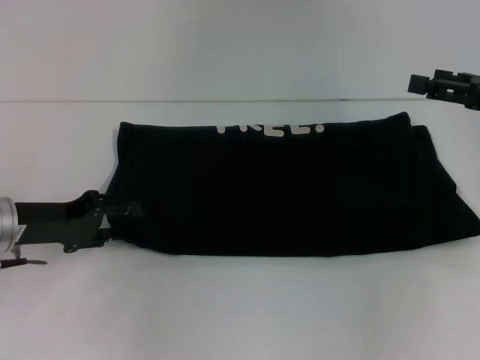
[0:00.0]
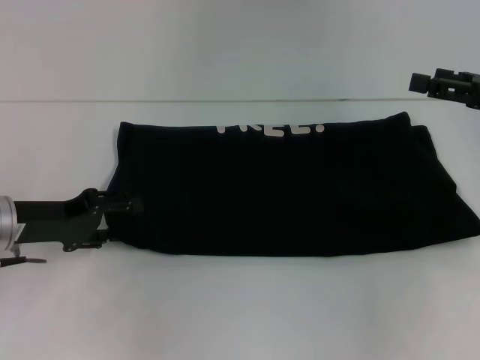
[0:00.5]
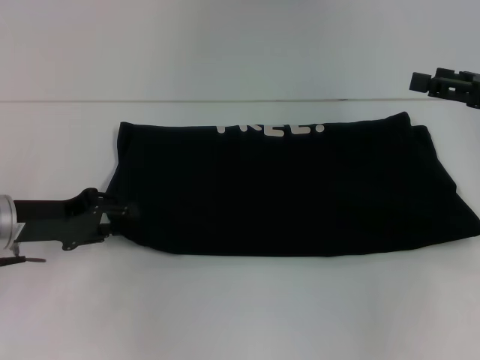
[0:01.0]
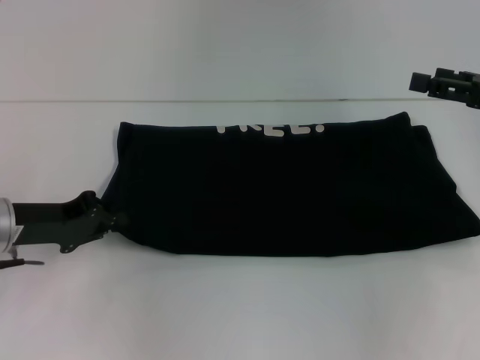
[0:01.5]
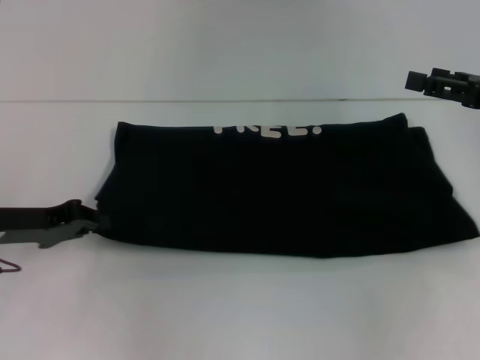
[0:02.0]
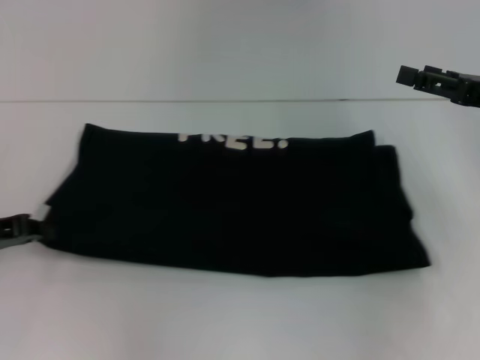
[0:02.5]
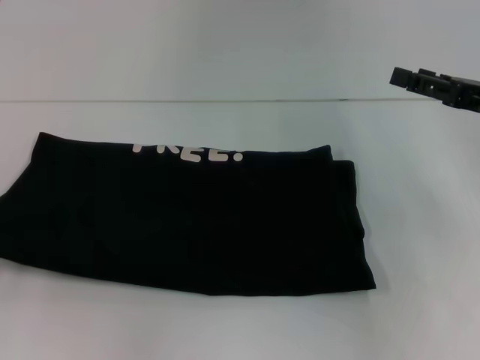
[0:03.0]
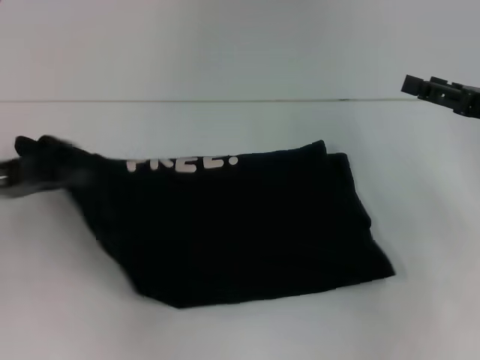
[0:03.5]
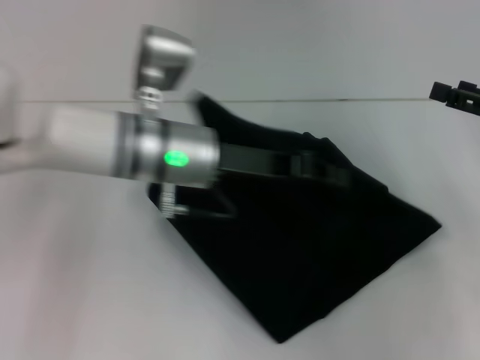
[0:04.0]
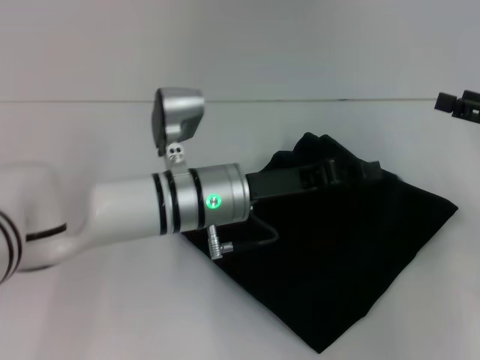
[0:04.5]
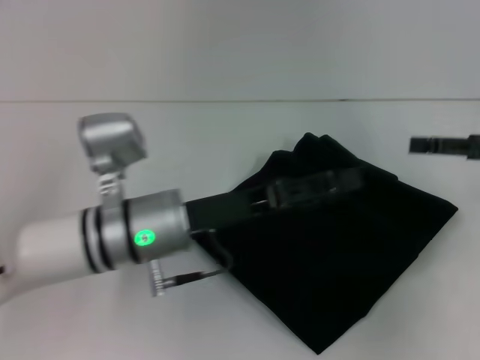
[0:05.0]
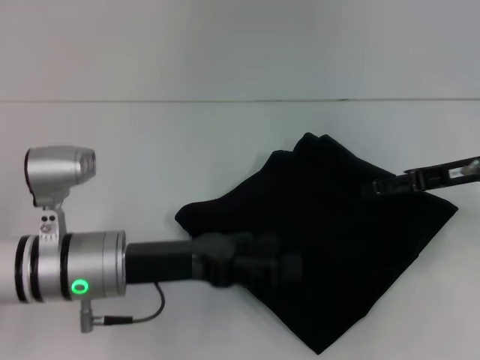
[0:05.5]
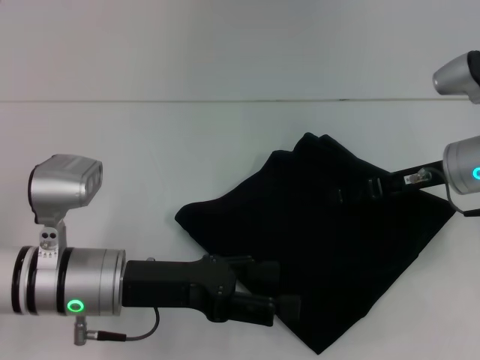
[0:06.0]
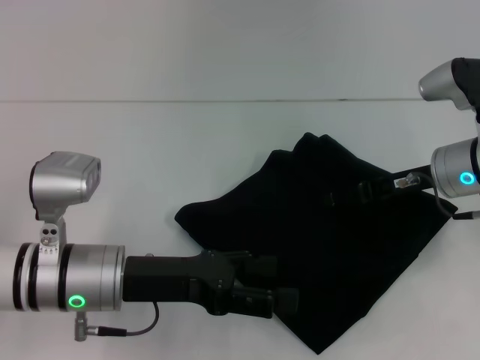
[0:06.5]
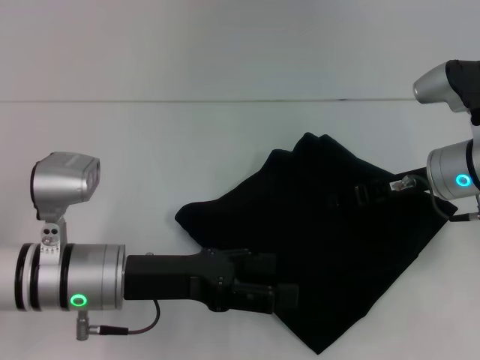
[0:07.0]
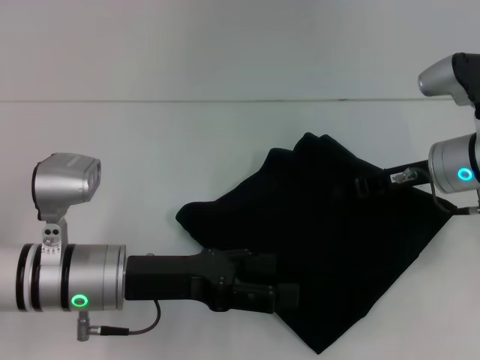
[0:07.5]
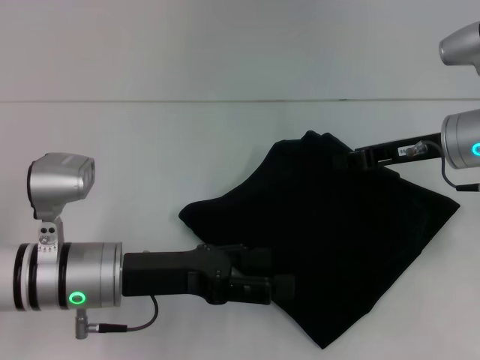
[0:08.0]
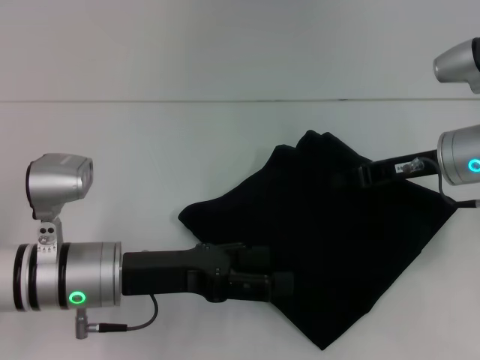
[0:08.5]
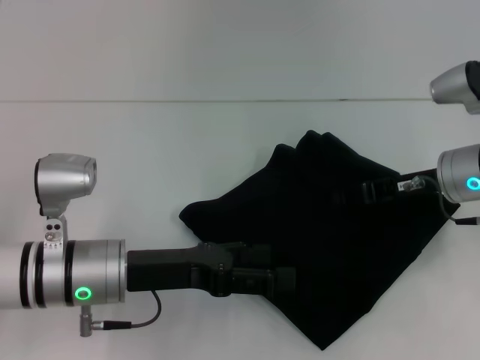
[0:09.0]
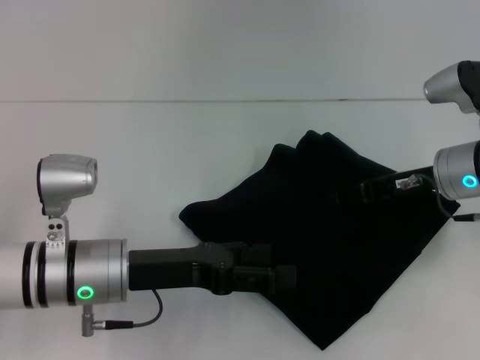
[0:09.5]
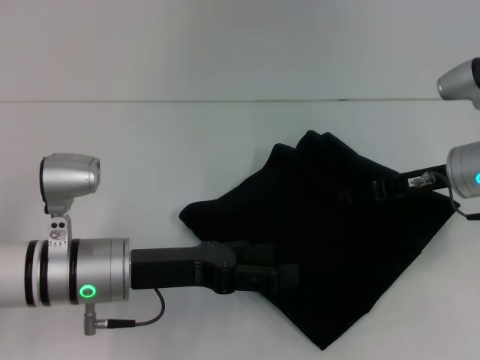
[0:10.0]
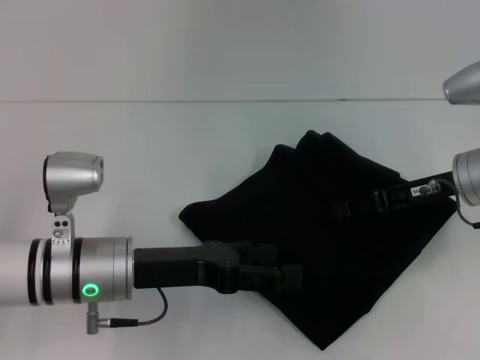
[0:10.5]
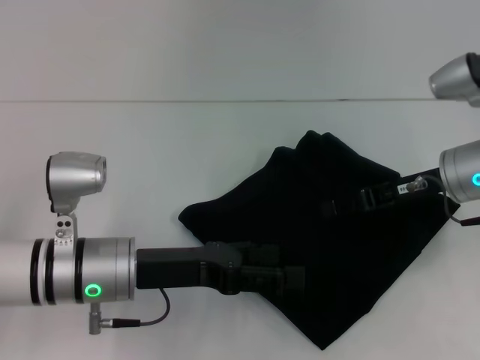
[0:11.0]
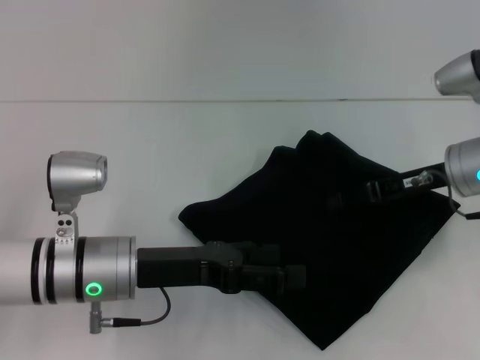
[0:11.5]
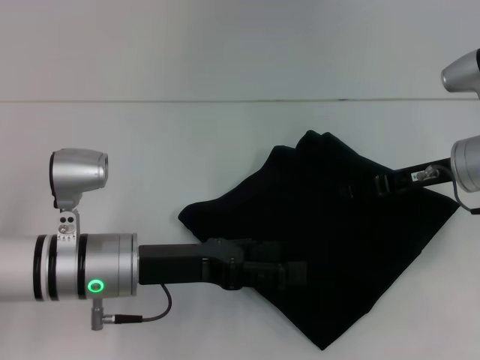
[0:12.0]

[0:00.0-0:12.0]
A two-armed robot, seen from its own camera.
Step, 0:00.0 to 0:04.5: Fold the clothes with your left hand.
0:00.0 to 0:02.0: The left gripper closes.
0:02.0 to 0:04.0: The left gripper shifts approximately 20 cm to the right.
0:04.0 to 0:06.0: The right gripper shifts roughly 10 cm to the left. Meanwhile the left gripper moves backward, to the left and downward, about 15 cm, and opens.
0:06.0 to 0:08.0: The right gripper closes up.
0:08.0 to 0:10.0: The right gripper opens up.
0:10.0 to 0:12.0: There are only small adjustments of the grippers.

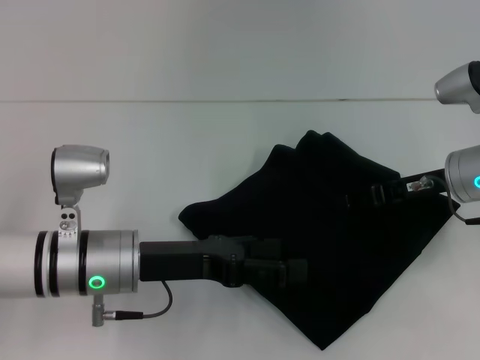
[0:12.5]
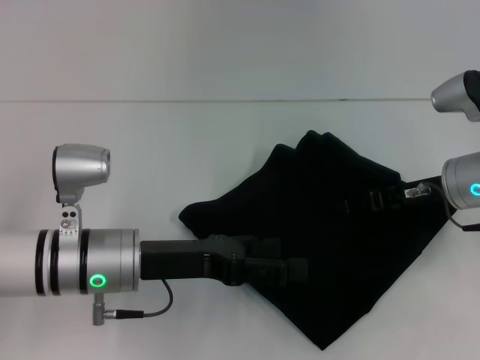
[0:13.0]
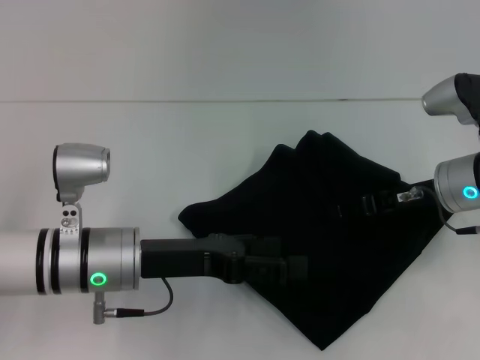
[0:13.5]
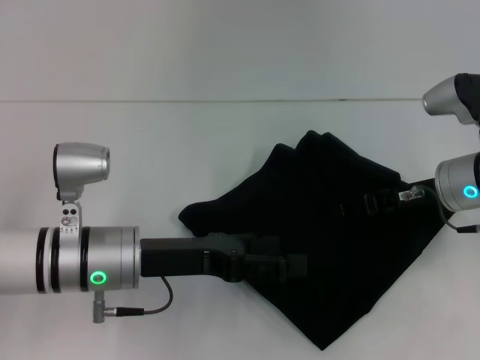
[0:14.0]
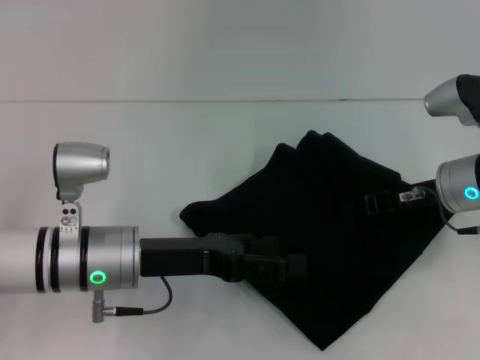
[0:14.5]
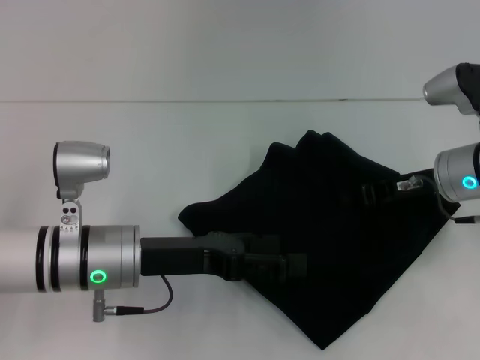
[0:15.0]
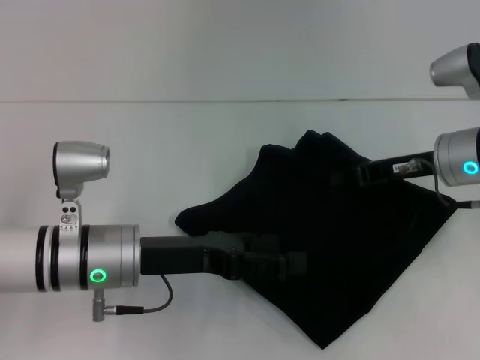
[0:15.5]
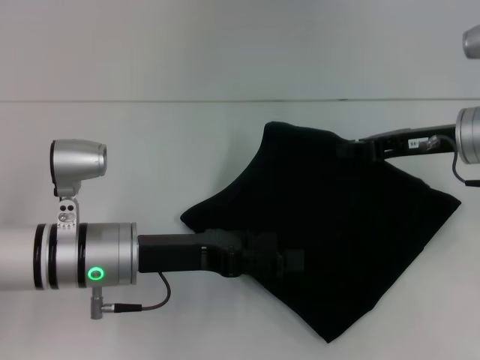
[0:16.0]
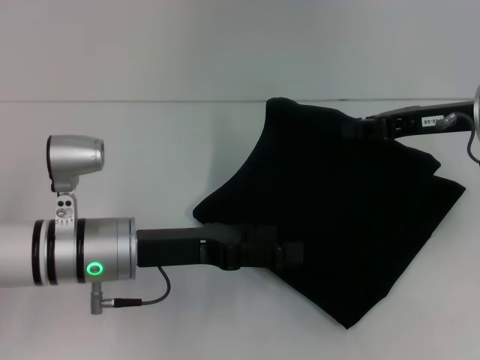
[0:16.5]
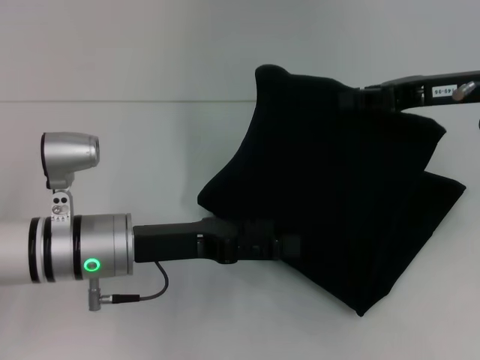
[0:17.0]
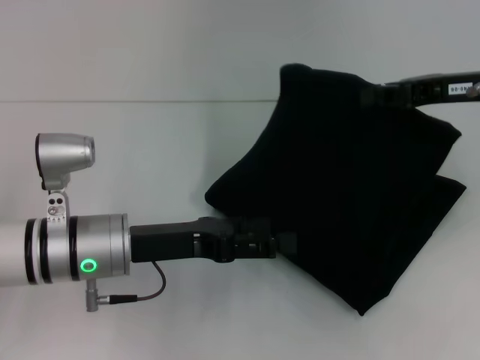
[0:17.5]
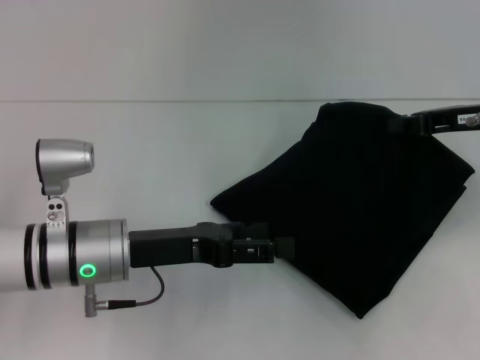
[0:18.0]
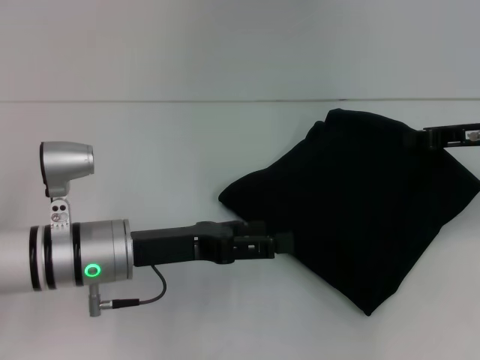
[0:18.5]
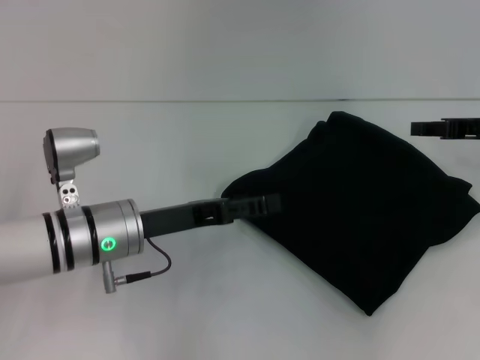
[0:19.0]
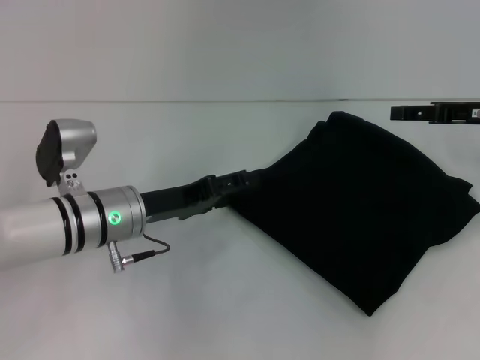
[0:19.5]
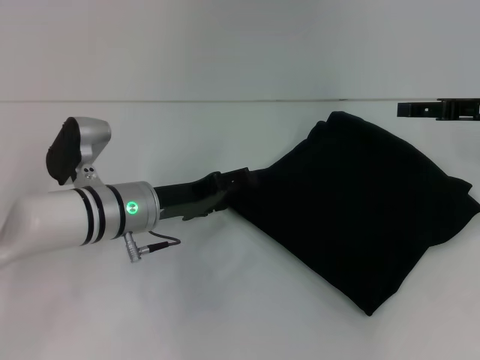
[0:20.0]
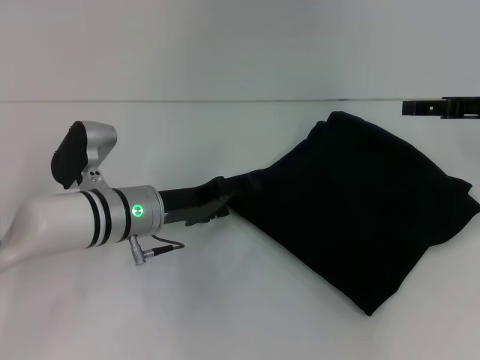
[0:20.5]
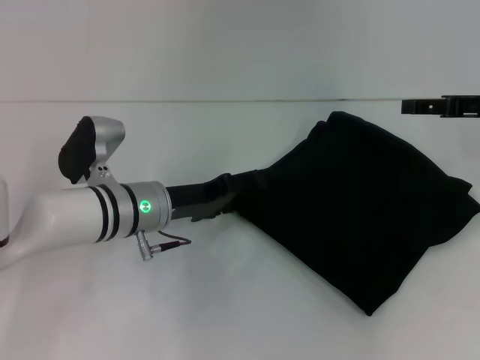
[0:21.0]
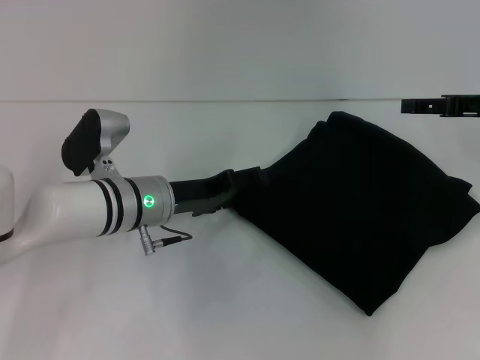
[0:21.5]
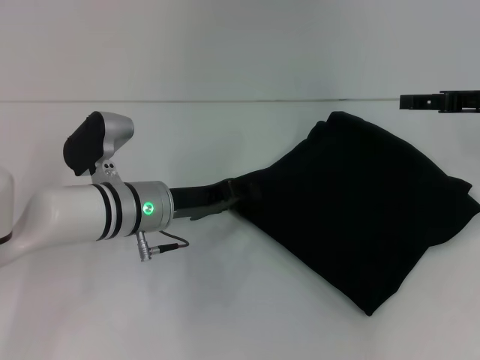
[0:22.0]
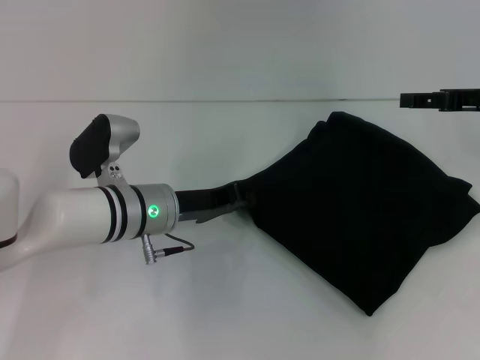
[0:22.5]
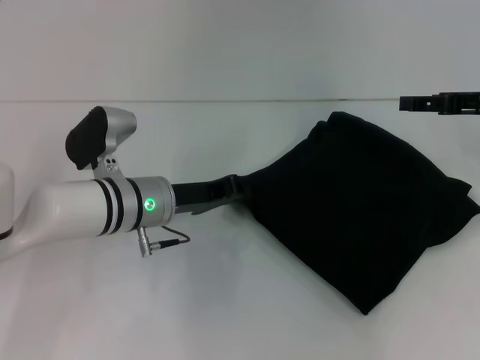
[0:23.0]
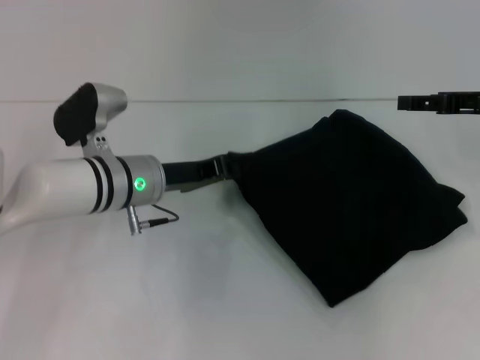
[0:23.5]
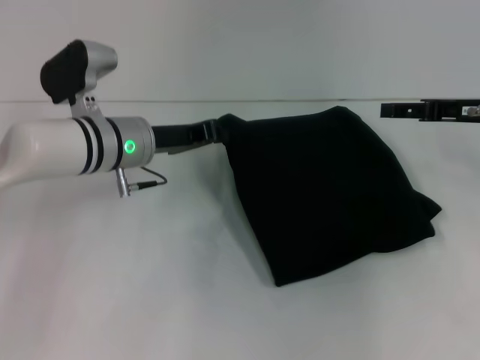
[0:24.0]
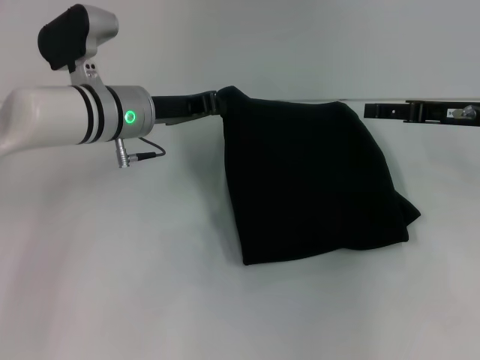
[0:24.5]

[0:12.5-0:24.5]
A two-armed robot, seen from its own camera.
0:12.5 to 0:14.5: Neither gripper changes place.
0:14.5 to 0:16.5: The right gripper travels upward by roughly 10 cm.
0:16.5 to 0:18.5: The right gripper shifts by some 5 cm.
0:18.5 to 0:20.5: The right gripper opens its fingers, while the left gripper is displaced forward by approximately 5 cm.
0:20.5 to 0:22.5: The left gripper closes up.
0:22.5 to 0:24.5: The left gripper is displaced upward and forward by about 10 cm.

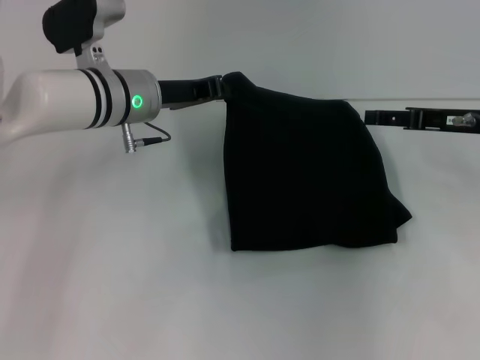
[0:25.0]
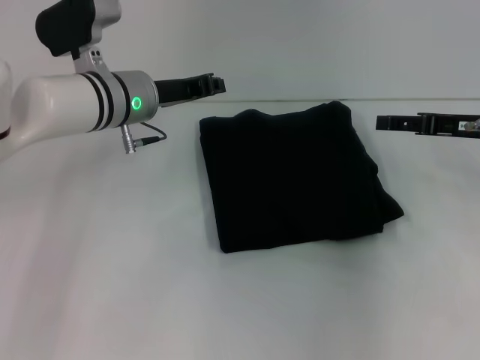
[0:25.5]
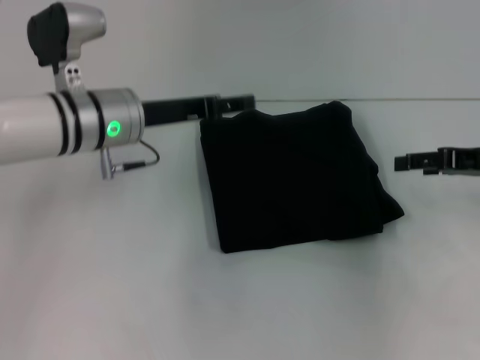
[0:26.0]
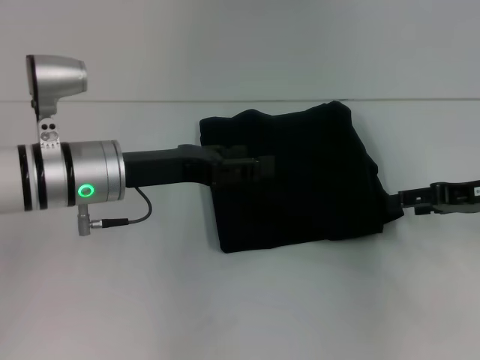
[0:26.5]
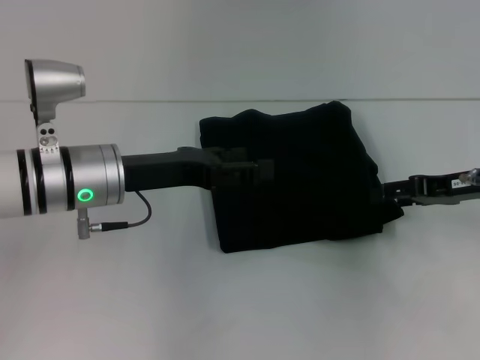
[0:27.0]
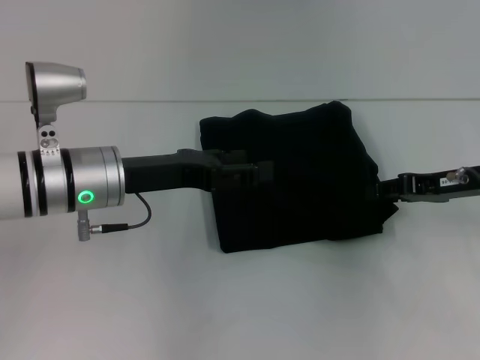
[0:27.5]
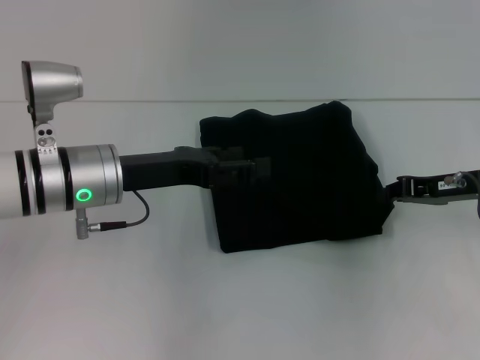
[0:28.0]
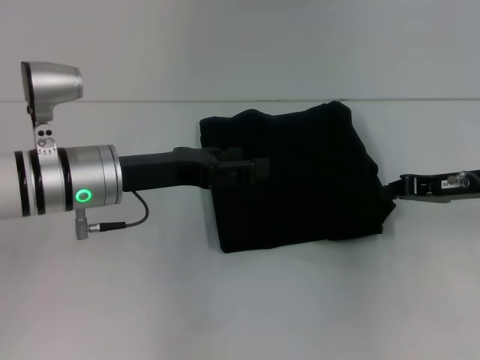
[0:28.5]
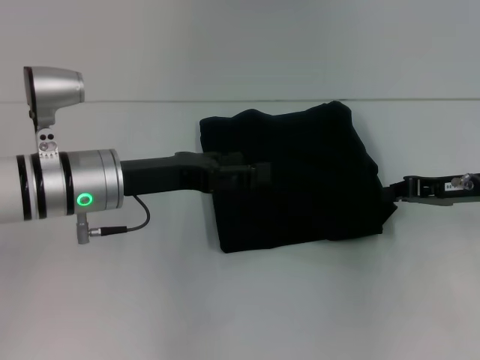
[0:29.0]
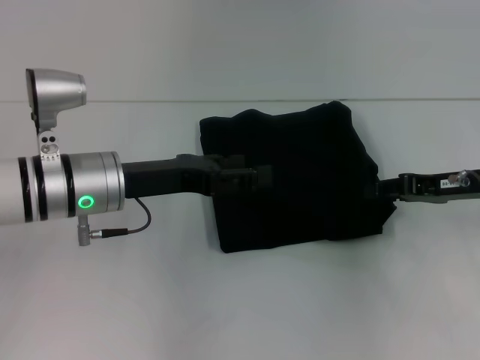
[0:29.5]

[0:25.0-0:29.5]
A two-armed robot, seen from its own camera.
0:25.0 to 0:27.0: The left gripper moves backward, about 10 cm, and opens its fingers.
0:27.0 to 0:29.5: The right gripper closes its fingers.
